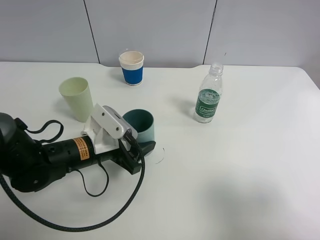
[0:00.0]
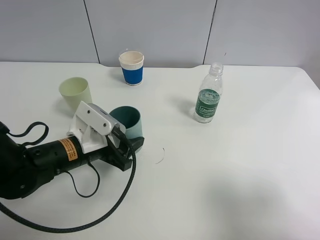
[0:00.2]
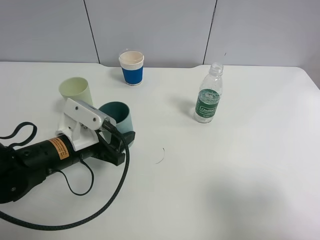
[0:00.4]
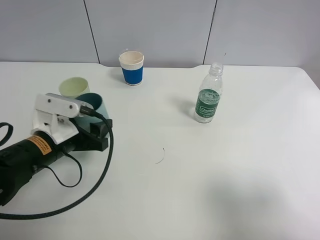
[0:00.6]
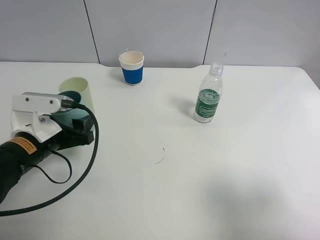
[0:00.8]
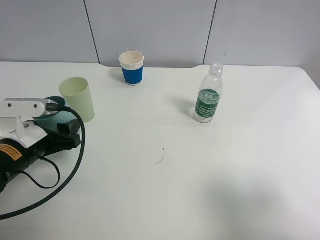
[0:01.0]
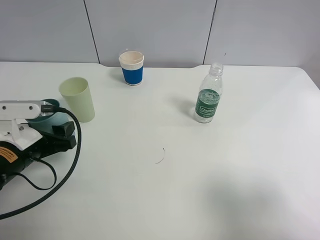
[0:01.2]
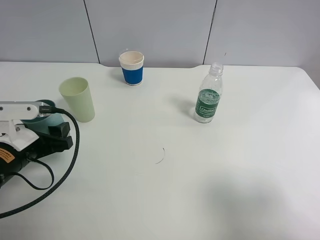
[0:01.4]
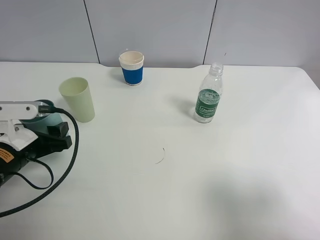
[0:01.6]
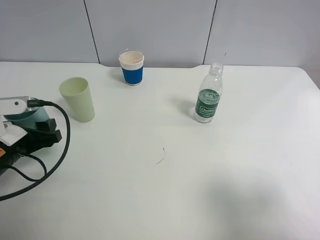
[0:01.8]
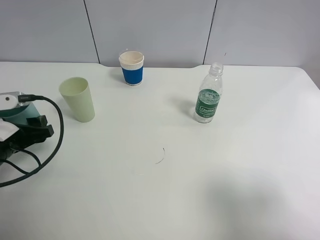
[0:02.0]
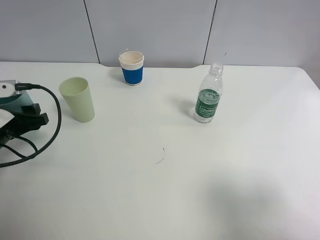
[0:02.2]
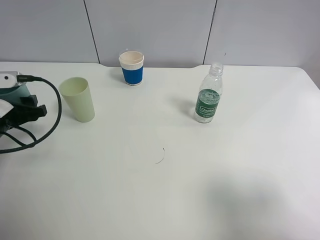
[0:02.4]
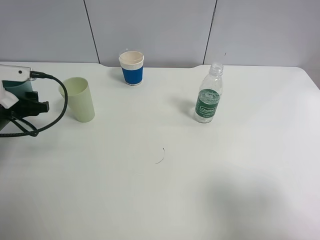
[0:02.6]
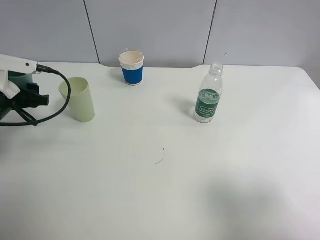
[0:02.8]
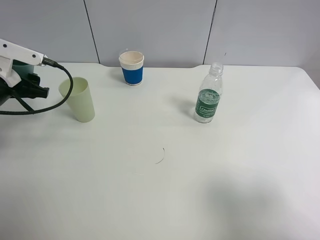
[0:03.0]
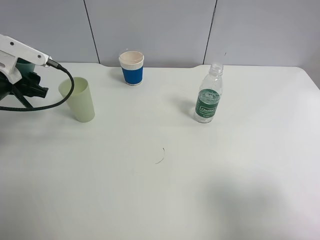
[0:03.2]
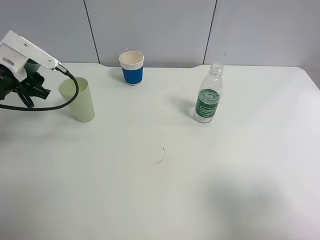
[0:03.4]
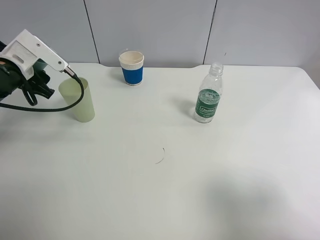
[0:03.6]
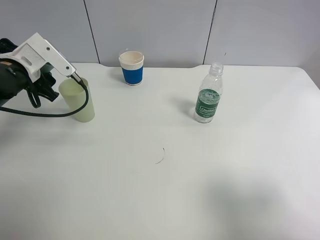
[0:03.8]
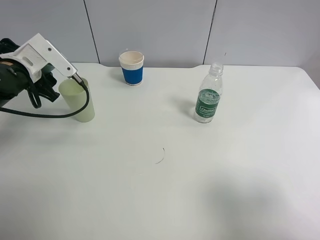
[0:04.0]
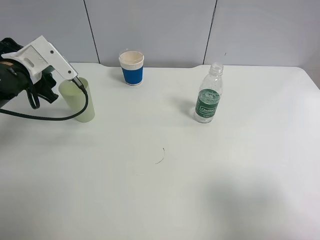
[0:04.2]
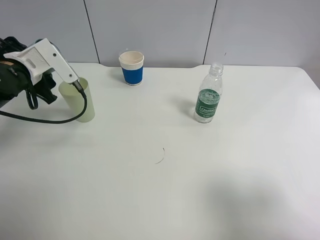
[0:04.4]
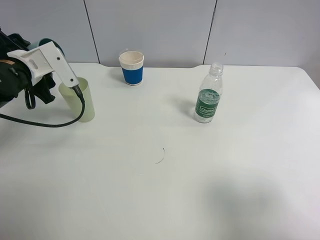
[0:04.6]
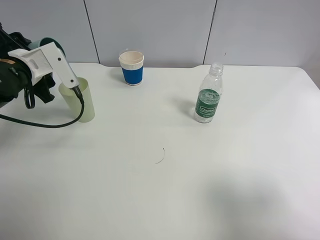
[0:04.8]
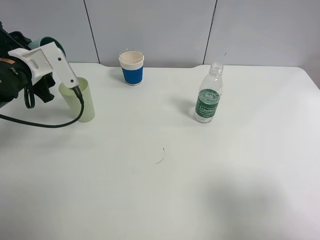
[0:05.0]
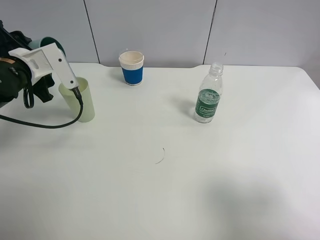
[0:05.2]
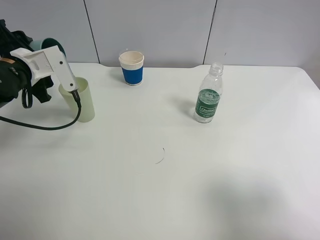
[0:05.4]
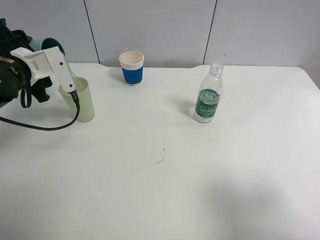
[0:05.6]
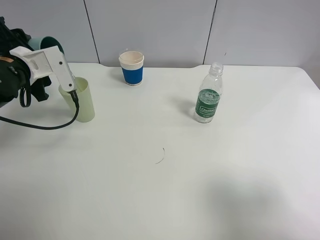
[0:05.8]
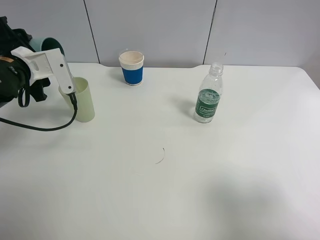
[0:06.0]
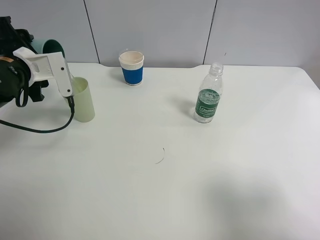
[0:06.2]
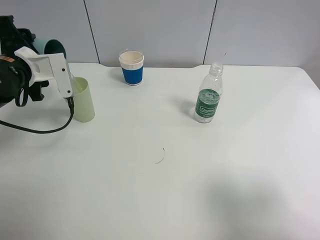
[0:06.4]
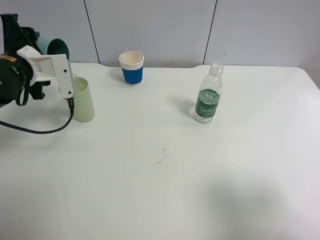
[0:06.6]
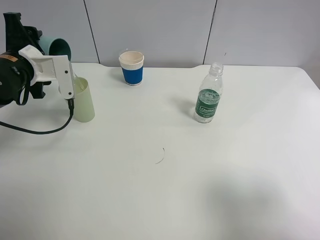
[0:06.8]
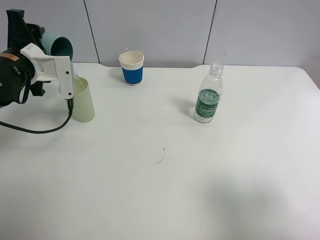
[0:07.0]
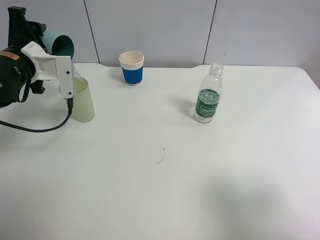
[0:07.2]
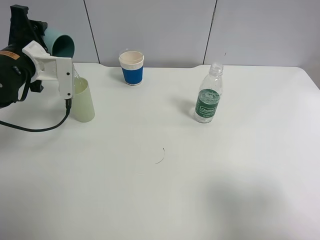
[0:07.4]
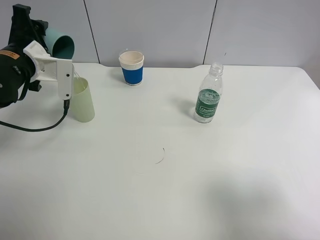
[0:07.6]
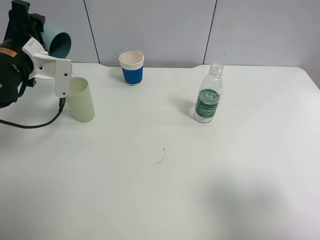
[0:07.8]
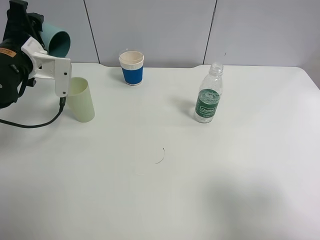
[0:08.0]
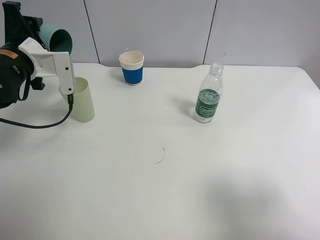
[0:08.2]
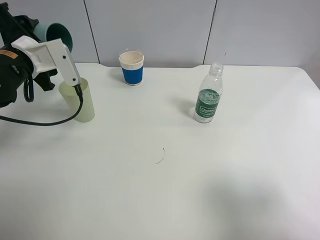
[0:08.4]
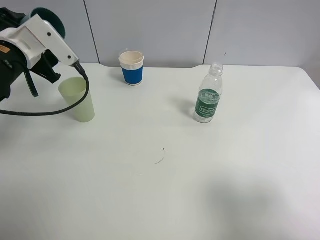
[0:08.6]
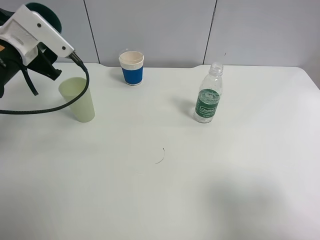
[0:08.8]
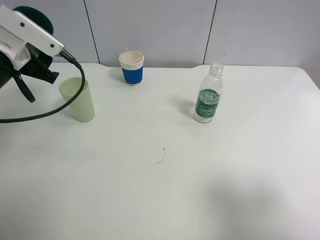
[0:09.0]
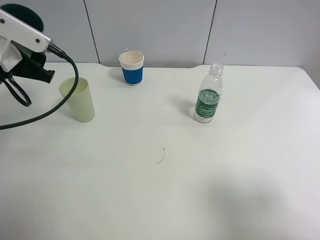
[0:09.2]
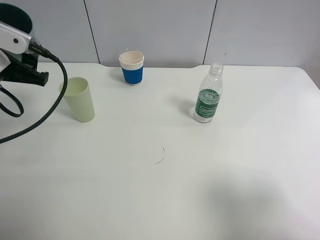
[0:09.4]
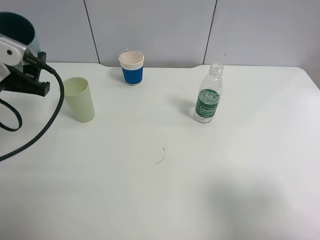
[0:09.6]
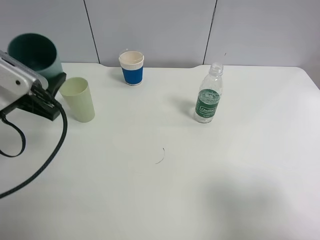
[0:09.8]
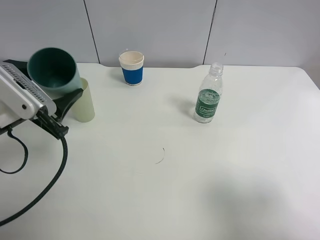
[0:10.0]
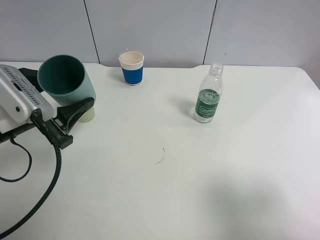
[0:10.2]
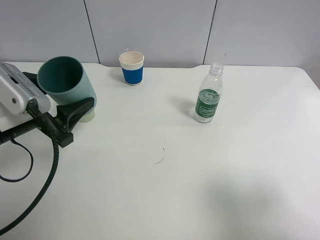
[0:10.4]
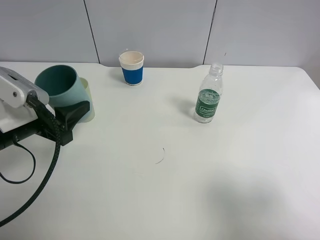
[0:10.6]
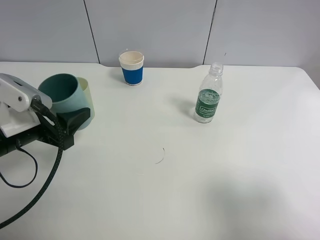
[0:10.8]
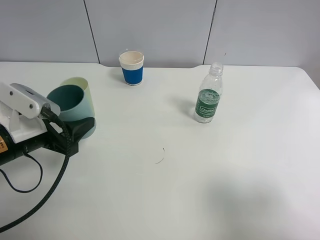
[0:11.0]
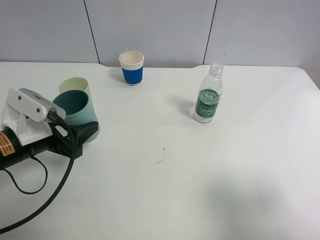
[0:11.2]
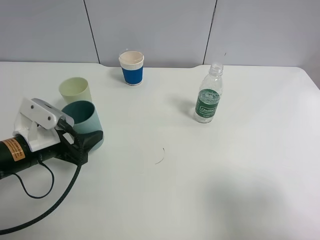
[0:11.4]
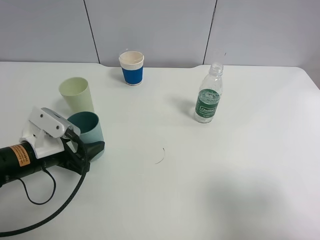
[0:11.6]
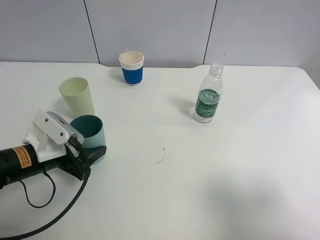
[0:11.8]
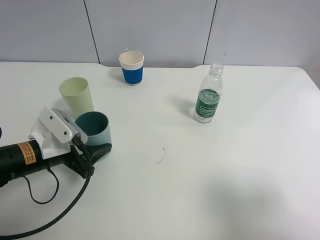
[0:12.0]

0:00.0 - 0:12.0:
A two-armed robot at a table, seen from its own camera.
Task of the whole recording: use a clamp to hold the bottle of the drink, pour the beverage into a random cup, then clamp the cup containing the drink and pour the drink into another random cup.
Step, 0:00.2 - 0:08.4: Pour water into the green plastic cup with left gripper.
0:00.0 - 0:01.6: The left gripper shifts about 10 cm to the left.
0:01.6 - 0:03.0: The left gripper goes roughly 15 cm forward, to the left and upward.
0:09.0 - 0:10.4: The left gripper shifts some 10 cm backward.
0:10.4 - 0:12.0: The left gripper heads downward, covering some 10 cm.

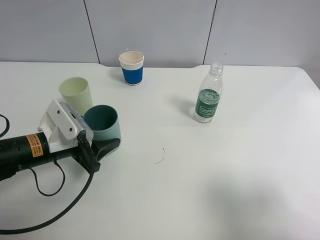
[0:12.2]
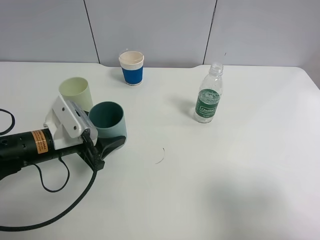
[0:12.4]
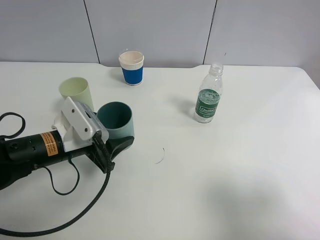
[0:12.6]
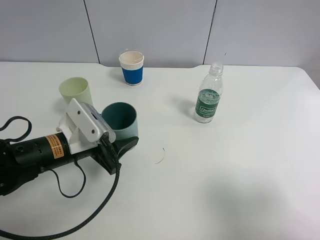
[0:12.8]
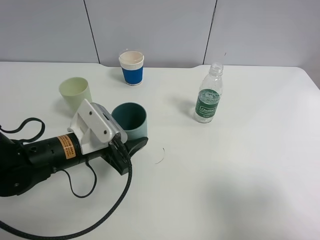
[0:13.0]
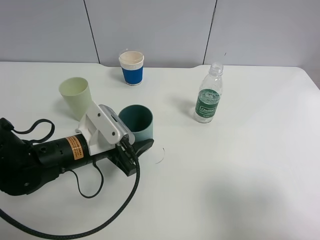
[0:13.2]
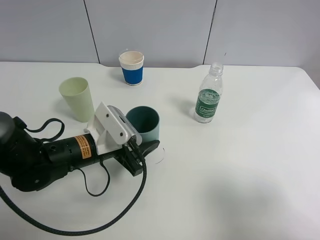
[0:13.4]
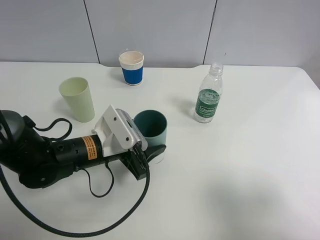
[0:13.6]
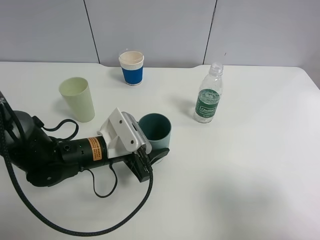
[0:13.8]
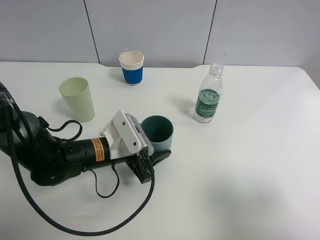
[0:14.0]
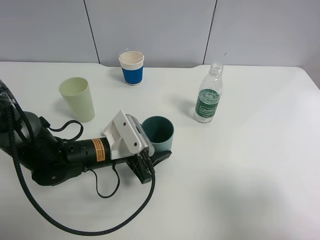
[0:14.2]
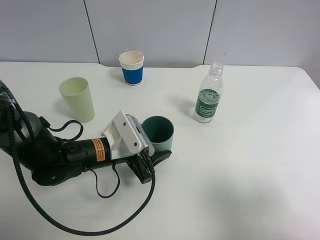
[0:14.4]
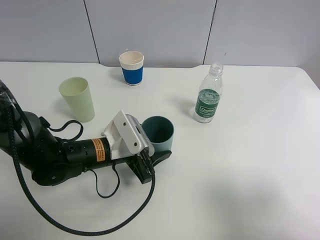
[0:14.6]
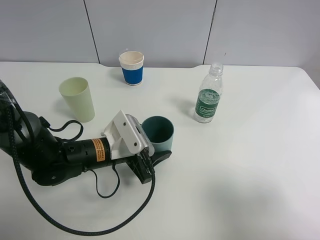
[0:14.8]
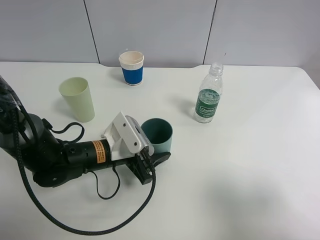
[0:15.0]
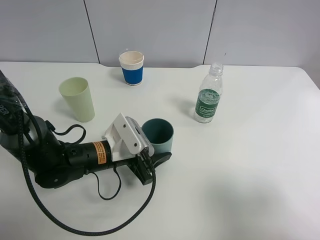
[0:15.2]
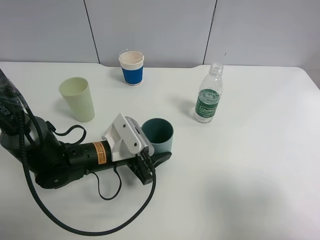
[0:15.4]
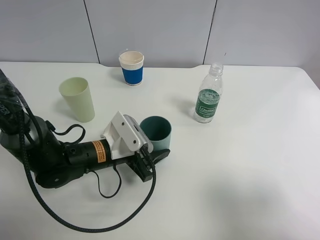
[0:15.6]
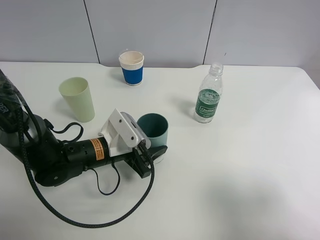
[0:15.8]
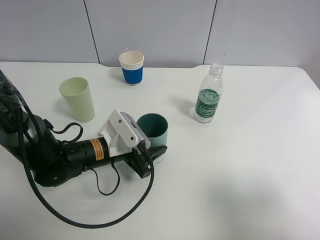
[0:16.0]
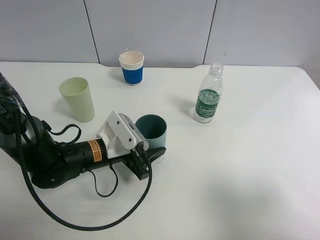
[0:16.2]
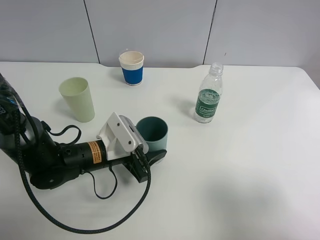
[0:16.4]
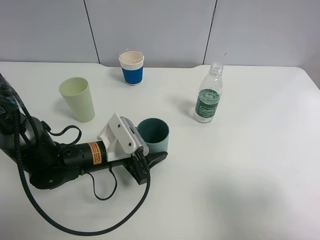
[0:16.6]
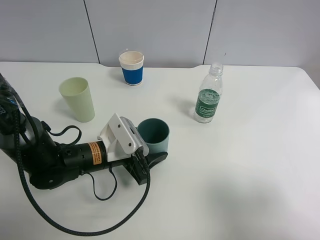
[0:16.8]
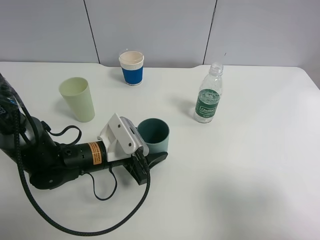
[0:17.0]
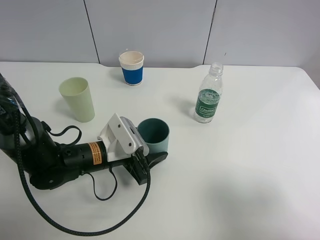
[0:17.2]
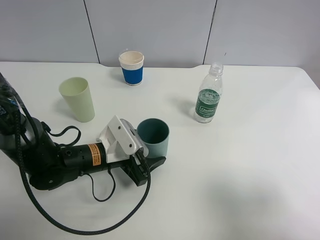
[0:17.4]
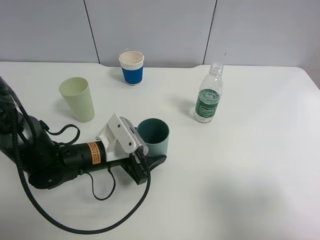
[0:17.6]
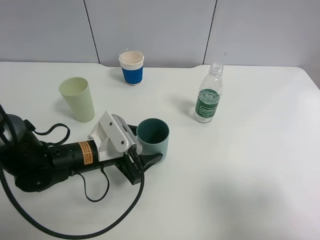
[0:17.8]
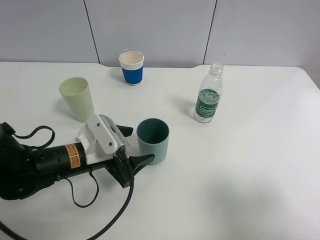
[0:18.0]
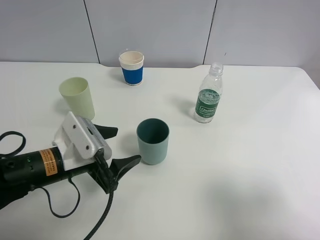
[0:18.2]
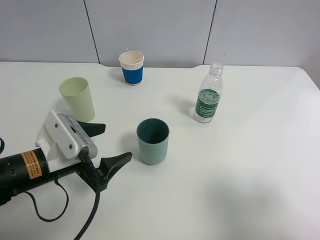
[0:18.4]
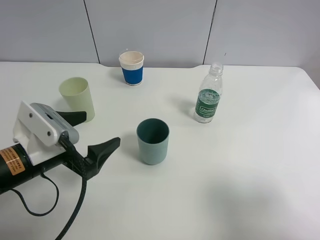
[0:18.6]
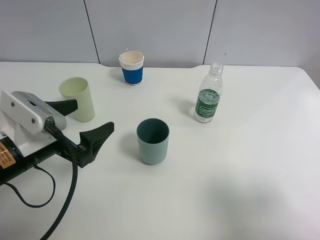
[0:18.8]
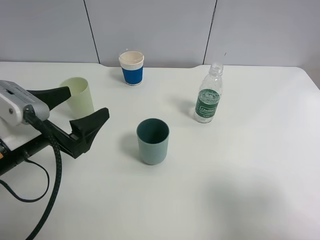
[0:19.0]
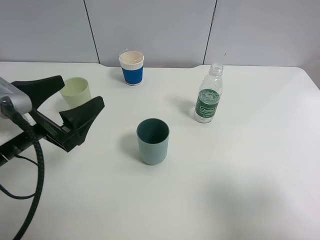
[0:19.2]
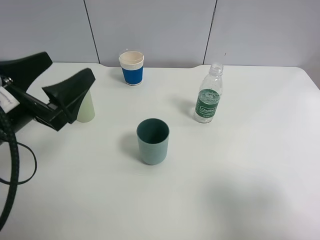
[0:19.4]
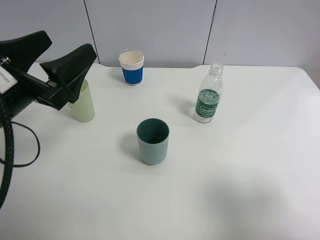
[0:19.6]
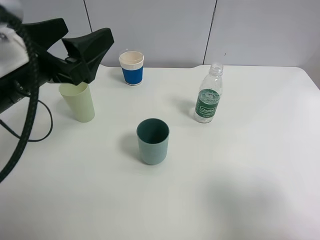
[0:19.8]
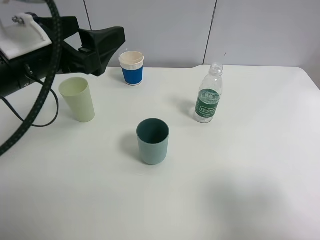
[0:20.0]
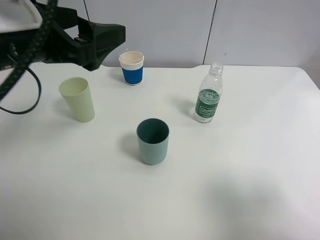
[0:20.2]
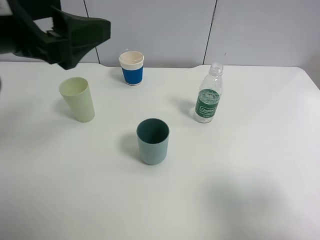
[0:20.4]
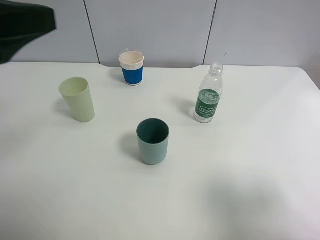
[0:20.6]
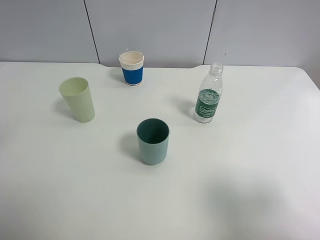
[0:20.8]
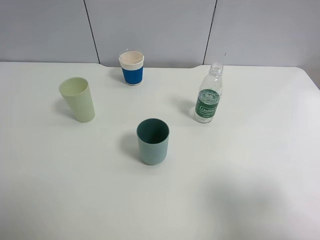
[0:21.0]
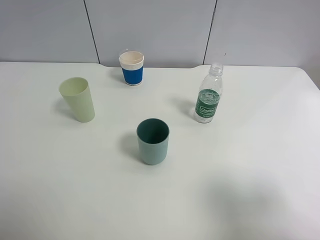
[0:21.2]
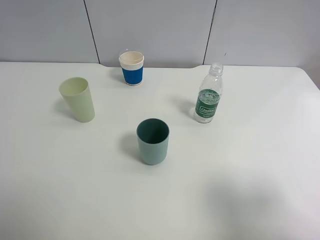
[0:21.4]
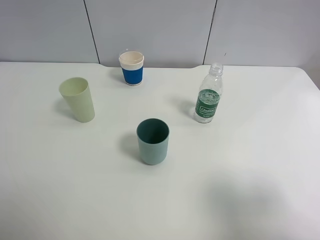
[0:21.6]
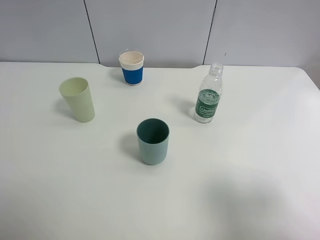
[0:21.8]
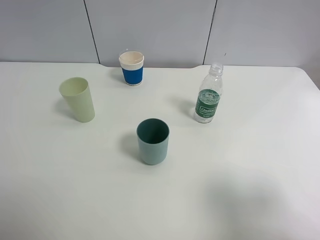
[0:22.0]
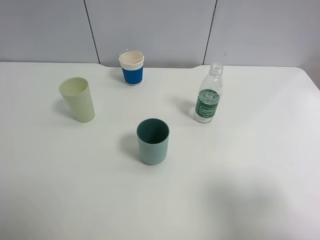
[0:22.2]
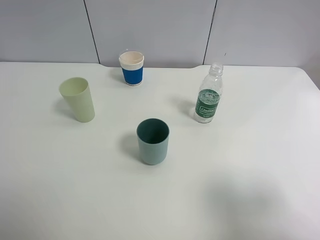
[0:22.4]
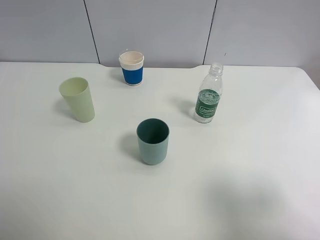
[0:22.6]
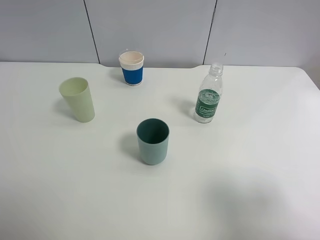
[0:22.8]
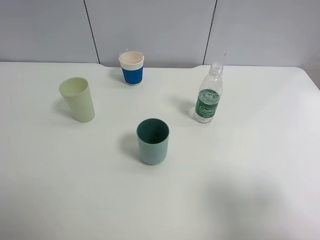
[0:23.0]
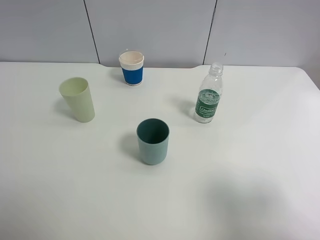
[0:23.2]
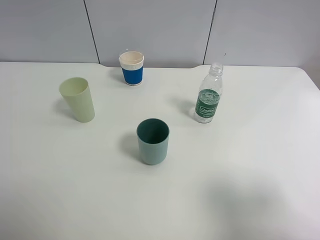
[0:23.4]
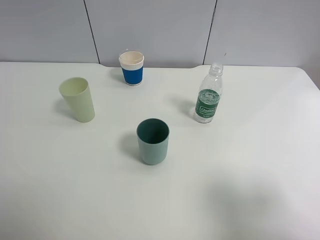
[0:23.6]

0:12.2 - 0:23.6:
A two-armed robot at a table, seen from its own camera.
Task of the whole recording: use a clamp to hold the bottle of the drink, pour the beverage into a random cup, then clamp the cup containing the drink and pour the drink into another random cup.
Step, 0:12.2 - 0:18.0: Place the blue plastic cup on the table with left gripper.
0:12.2 - 0:13.6: The left gripper moves to the right, some 10 cm.
0:13.6 - 0:15.0: There are only small adjustments of the grippers.
0:15.0 - 0:16.4: Neither gripper changes place.
0:16.4 - 0:17.8: The left gripper opens its fingers.
0:17.8 - 0:19.4: The left gripper moves upward and to the left, approximately 15 cm, and opens up.
0:19.4 - 0:20.8: The left gripper travels upward and to the left by some 15 cm.
